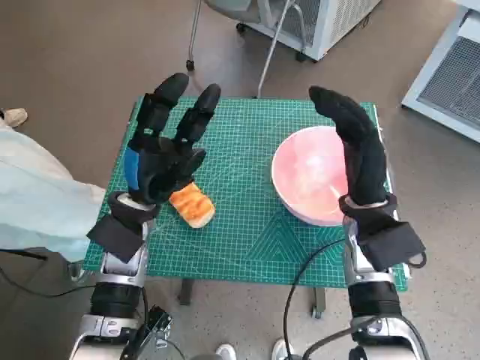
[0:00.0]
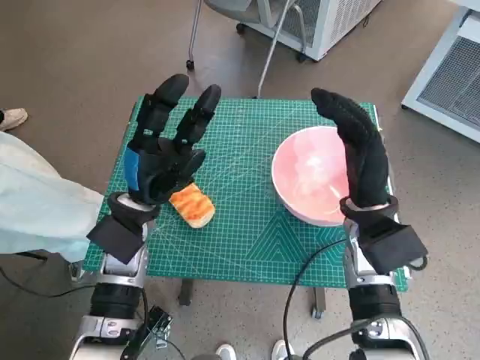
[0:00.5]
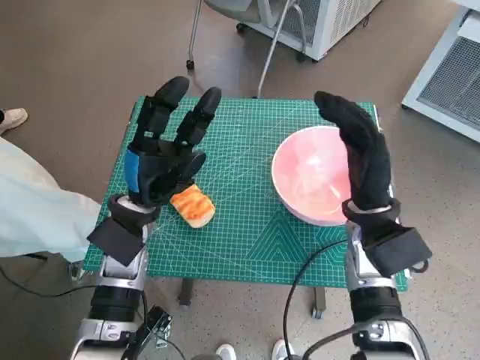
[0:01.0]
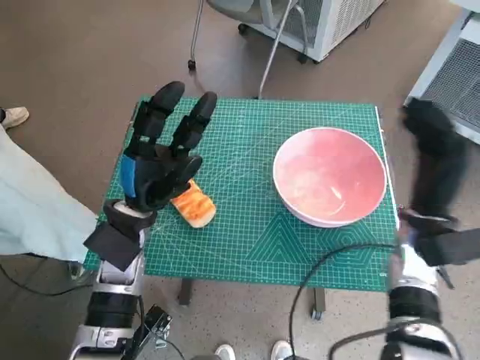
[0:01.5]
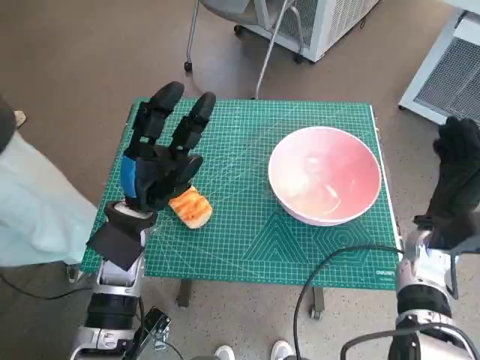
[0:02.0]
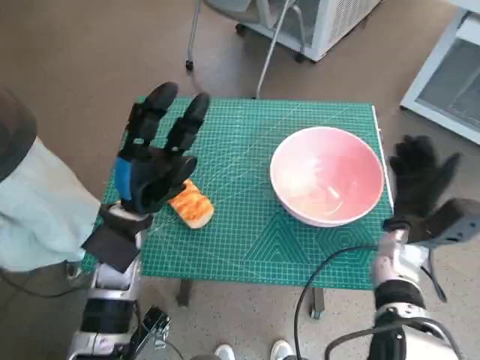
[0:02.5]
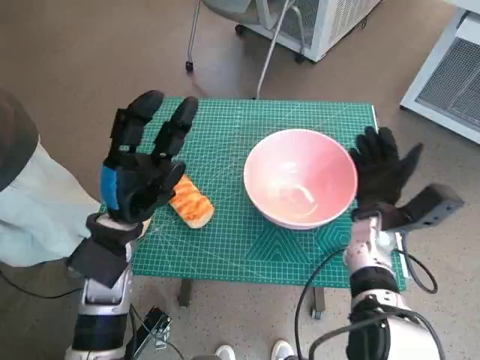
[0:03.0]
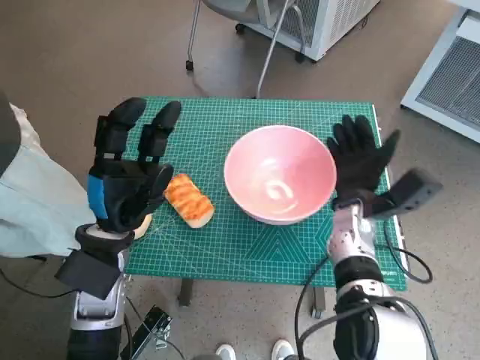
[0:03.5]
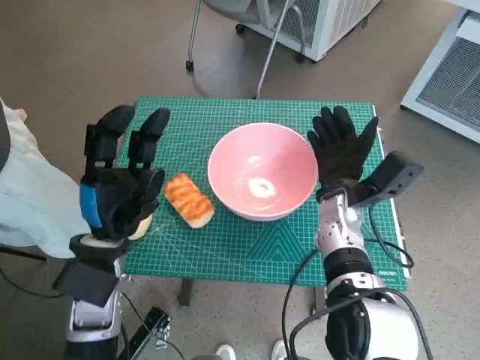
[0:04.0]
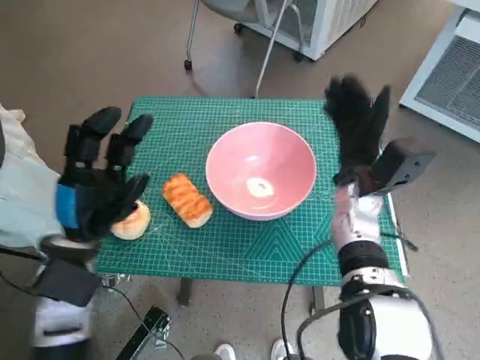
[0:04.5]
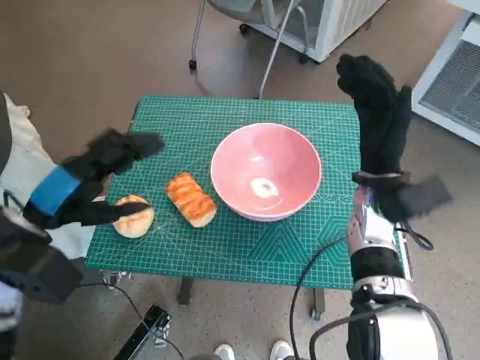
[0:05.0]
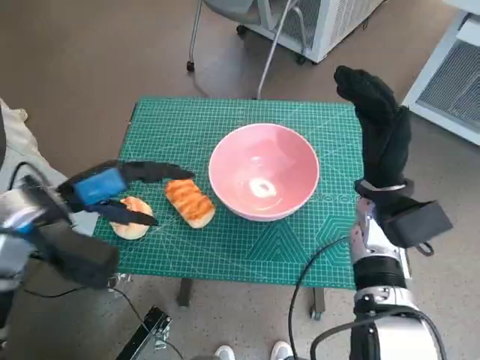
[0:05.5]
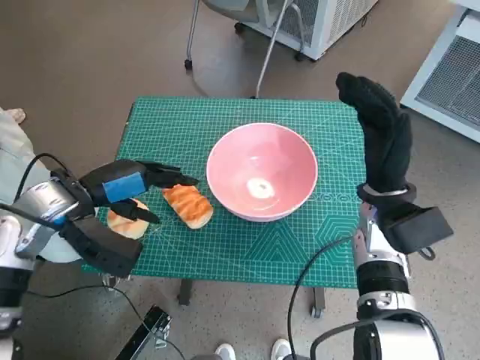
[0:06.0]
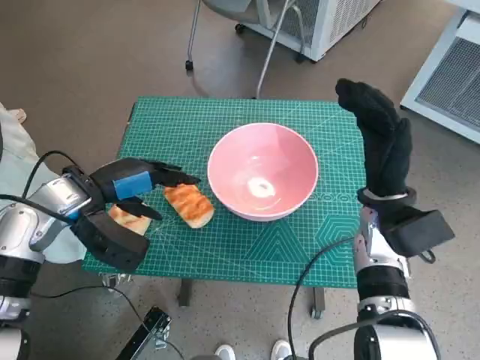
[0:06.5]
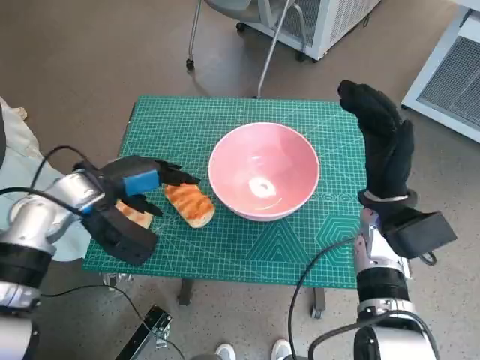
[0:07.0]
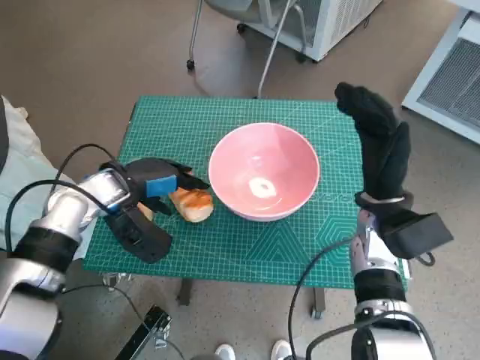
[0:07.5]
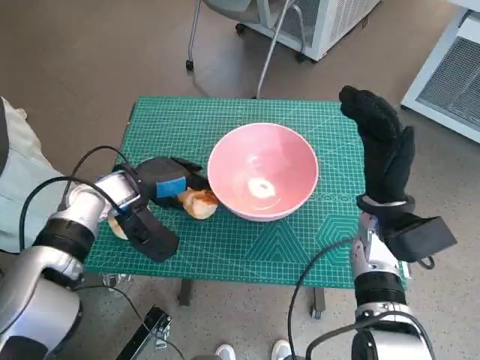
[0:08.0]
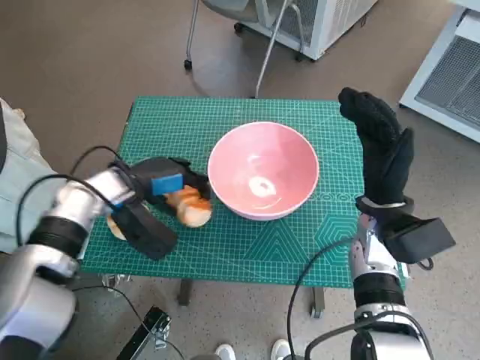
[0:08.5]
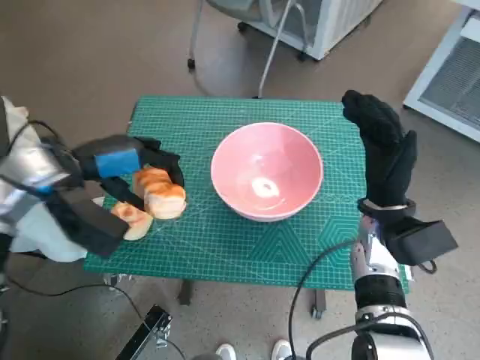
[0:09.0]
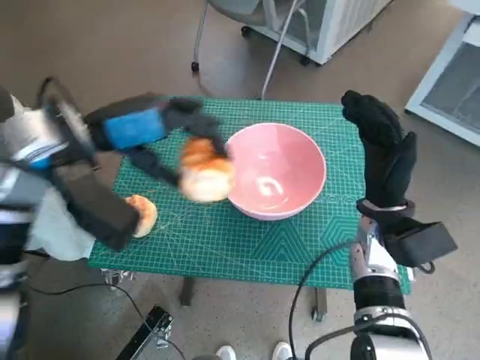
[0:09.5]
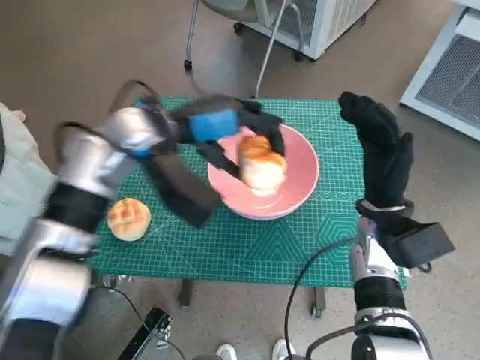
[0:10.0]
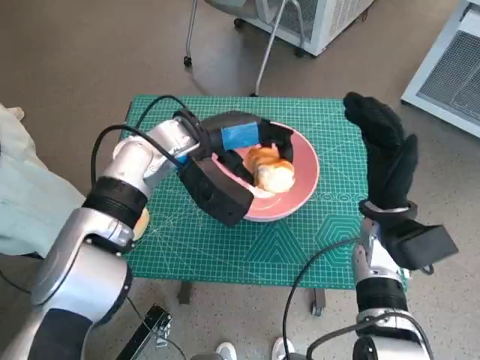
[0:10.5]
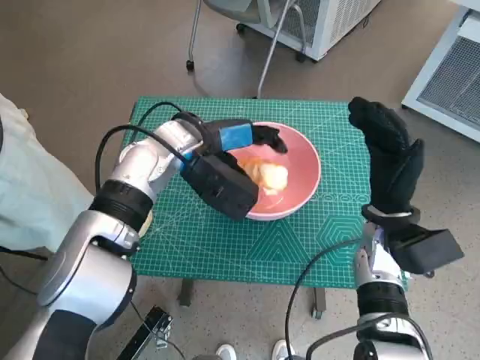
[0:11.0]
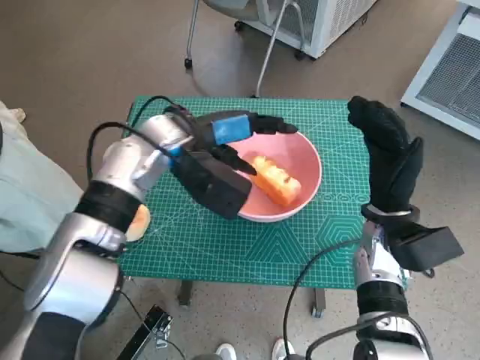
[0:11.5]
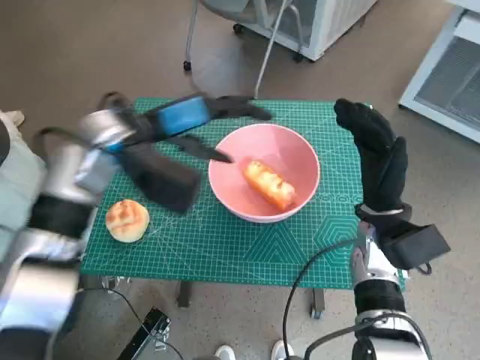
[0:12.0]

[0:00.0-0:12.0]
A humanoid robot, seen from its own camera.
Task of the whole recording: Push the bowl to the center of the table and put the bread into the bowl.
Step, 0:00.0 to 0:04.0: Move the pink bowl to the center of table with right hand.
Step, 0:04.5 to 0:07.5: Grasp the long bread with left hand.
Step, 0:08.0 to 0:11.0: Place the long bread in pink bowl with left hand.
0:02.0 to 0:04.0: The left hand shifts by roughly 5 cm. Meanwhile the right hand is displaced to the left by approximately 10 cm.
0:04.0 to 0:06.0: The left hand shifts some 10 cm forward, to the left and upward; the right hand shifts by some 5 cm.
0:06.0 to 0:08.0: The left hand heads downward and forward, covering some 10 cm.
0:08.0 to 0:10.0: The left hand travels upward and to the right by some 15 cm.

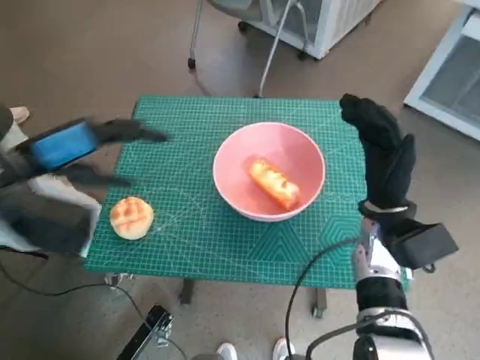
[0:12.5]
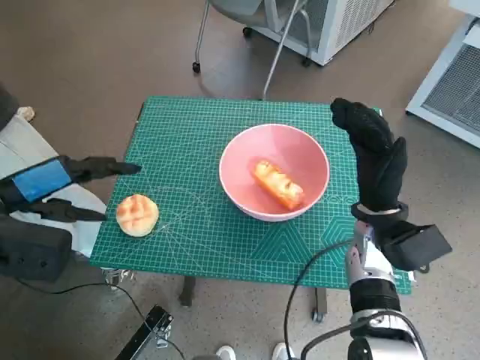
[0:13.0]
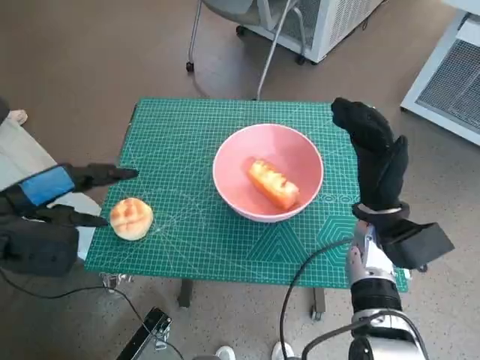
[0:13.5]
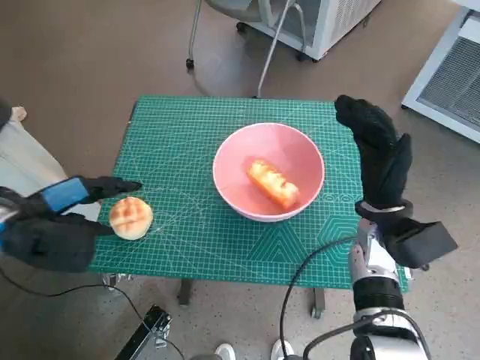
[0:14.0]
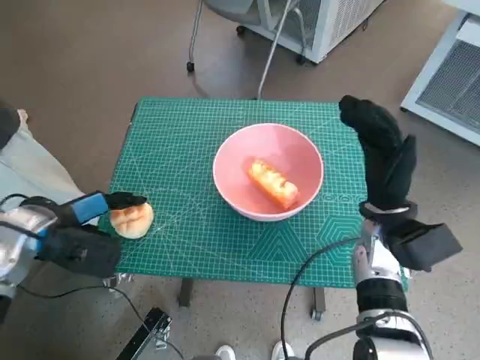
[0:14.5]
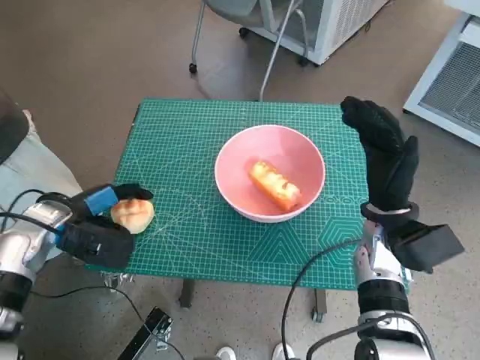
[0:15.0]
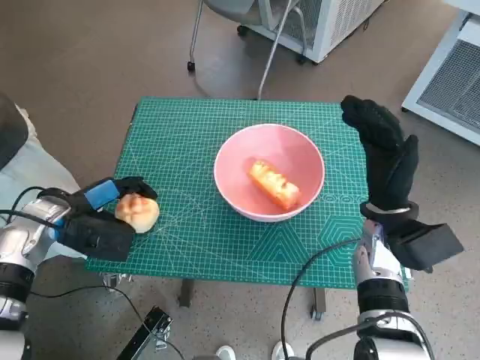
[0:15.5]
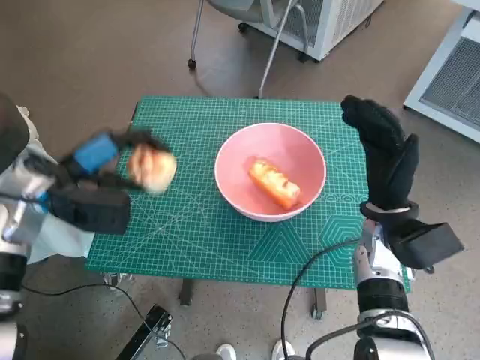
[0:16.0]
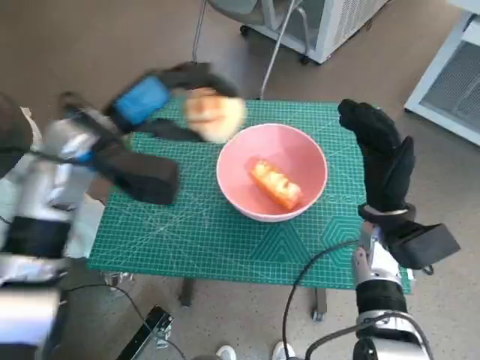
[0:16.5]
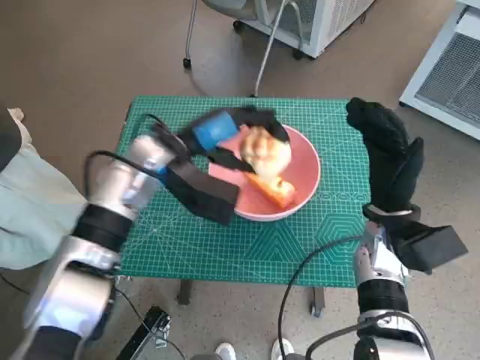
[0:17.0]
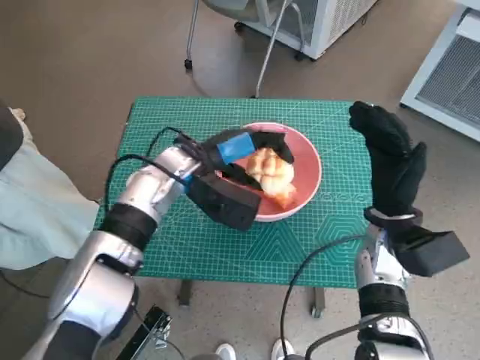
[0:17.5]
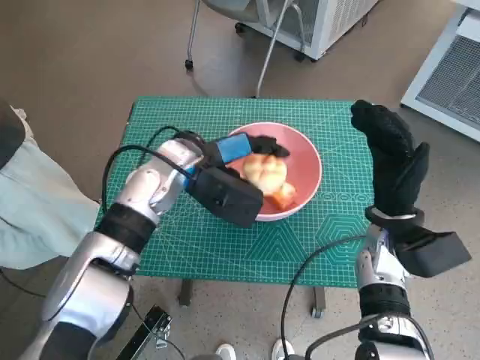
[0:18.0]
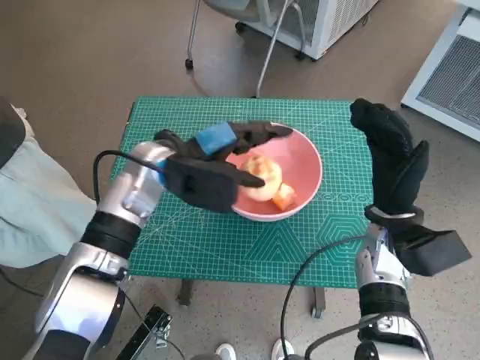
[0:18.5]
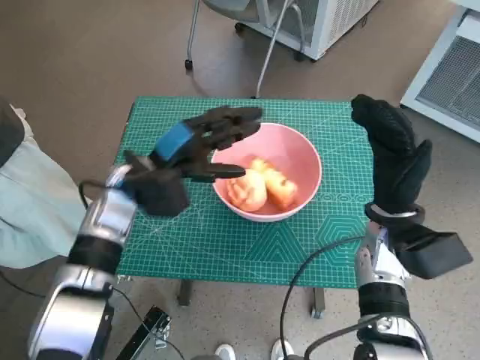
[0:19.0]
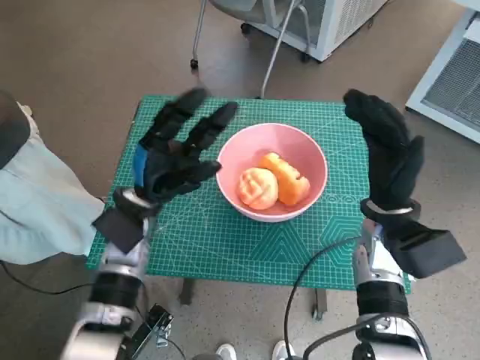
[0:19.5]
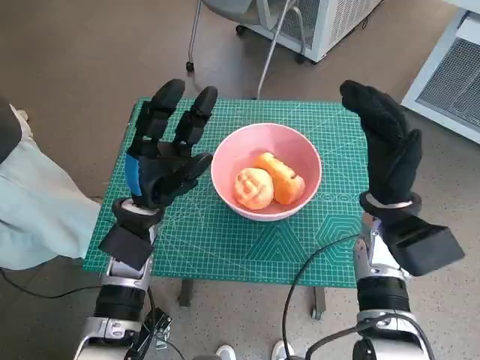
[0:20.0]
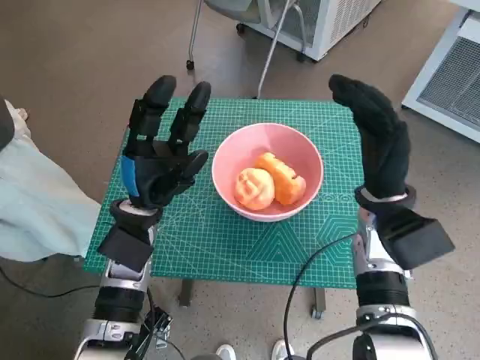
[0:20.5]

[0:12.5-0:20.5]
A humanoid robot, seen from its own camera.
Task of the whole recording: Push the bowl to the center of the table and put the bread into the bowl.
Step, 0:12.5 to 0:15.0: Grasp the round bread with left hand.
Step, 0:15.5 to 0:18.5: Place the round bread in pink bowl with left hand.
0:12.5 to 0:14.5: The left hand heads downward, covering roughly 10 cm.
0:14.5 to 0:16.5: The left hand heads upward, to the right and forward, covering about 15 cm.
0:16.5 to 0:18.5: The left hand shifts some 10 cm to the right and downward.
0:18.5 to 0:20.5: The left hand goes about 10 cm backward and downward.

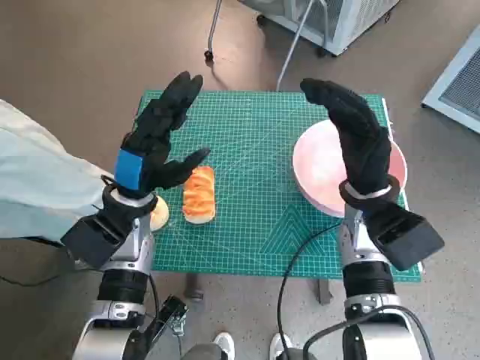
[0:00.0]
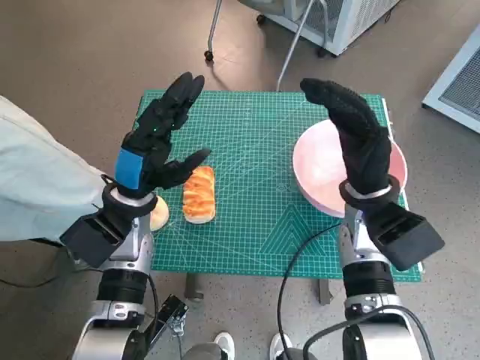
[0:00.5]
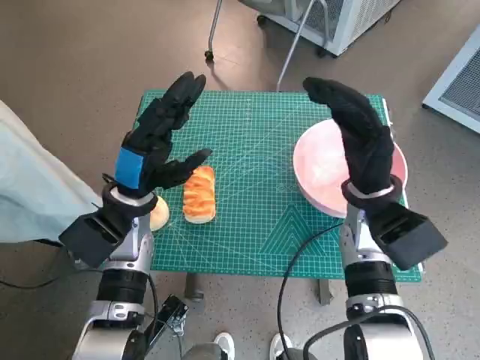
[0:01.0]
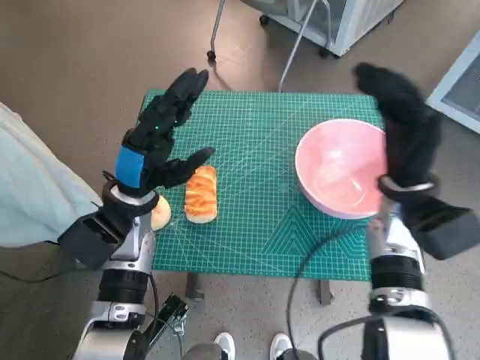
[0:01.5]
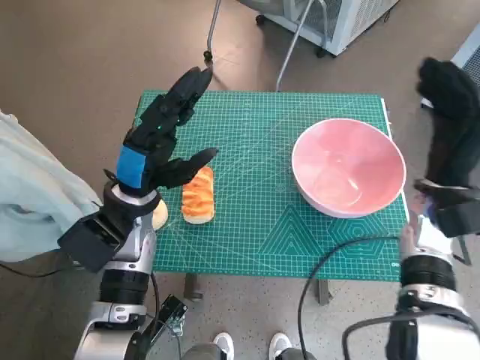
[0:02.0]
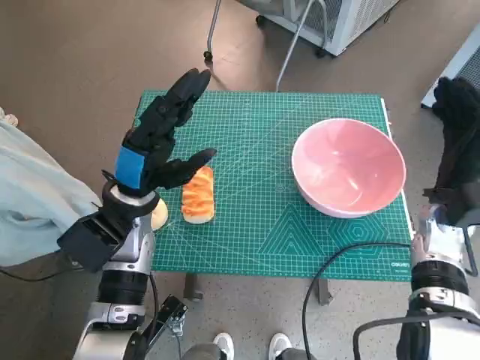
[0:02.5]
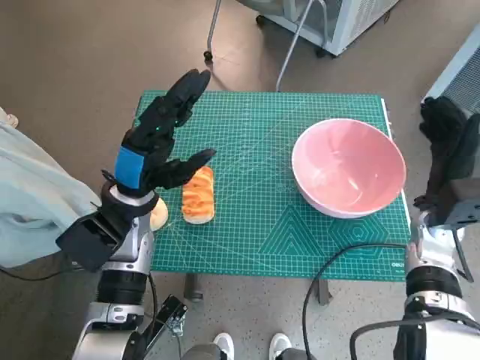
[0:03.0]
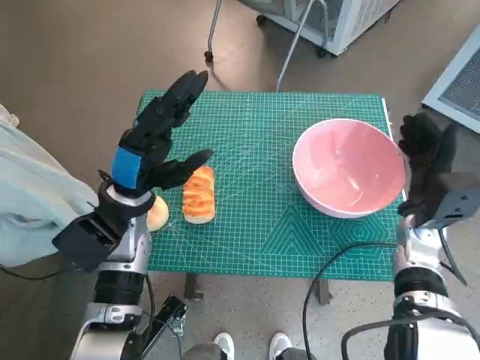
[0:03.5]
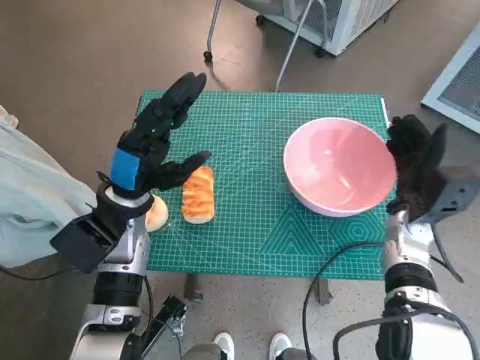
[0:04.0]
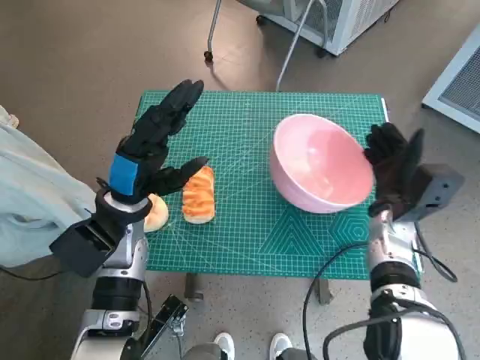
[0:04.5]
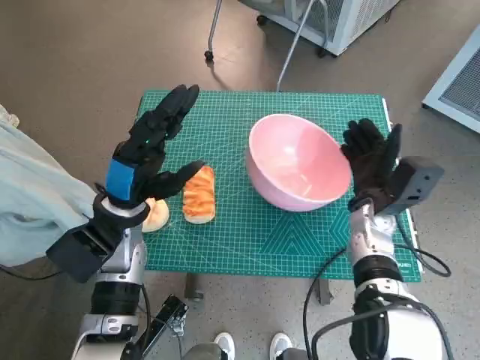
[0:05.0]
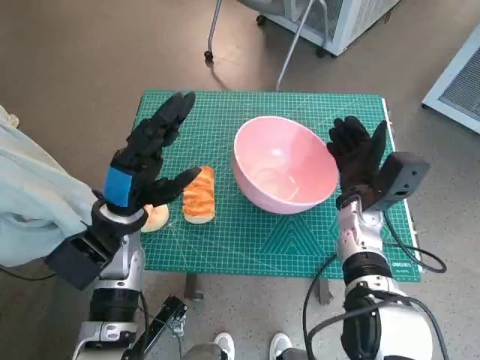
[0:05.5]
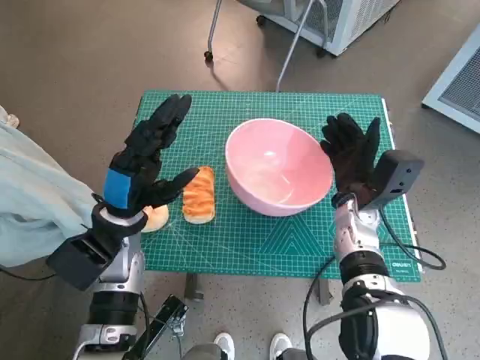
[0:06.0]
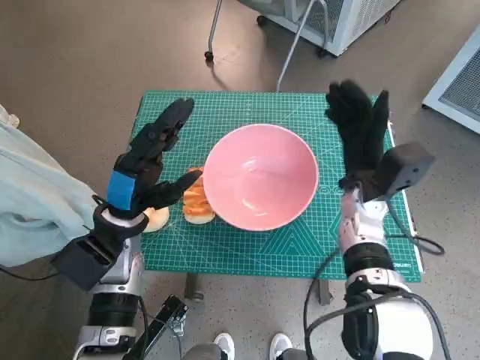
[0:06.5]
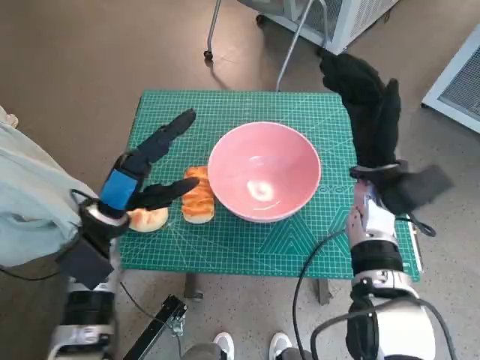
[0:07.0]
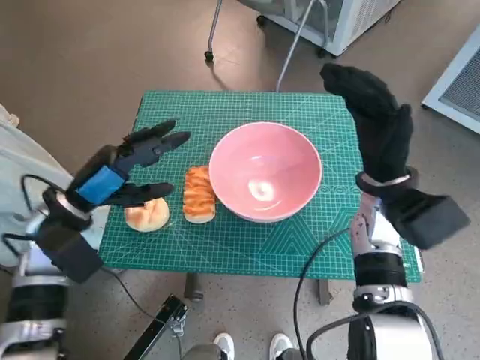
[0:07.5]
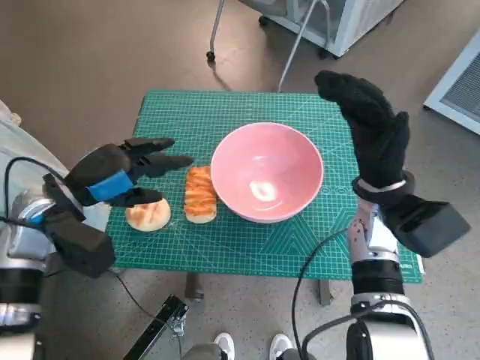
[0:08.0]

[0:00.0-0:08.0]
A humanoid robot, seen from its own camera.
Task of the whole recording: Push the bowl to the center of the table and put the bread into the bowl.
Step, 0:00.0 to 0:06.0: Move the pink bowl to the center of table with right hand.
0:02.0 to 0:04.0: The right hand is displaced downward by about 5 cm.
0:04.0 to 0:06.0: The right hand moves to the left, roughly 10 cm.
0:06.0 to 0:08.0: The left hand is displaced to the left by about 5 cm. The right hand heads upward, covering roughly 5 cm.
